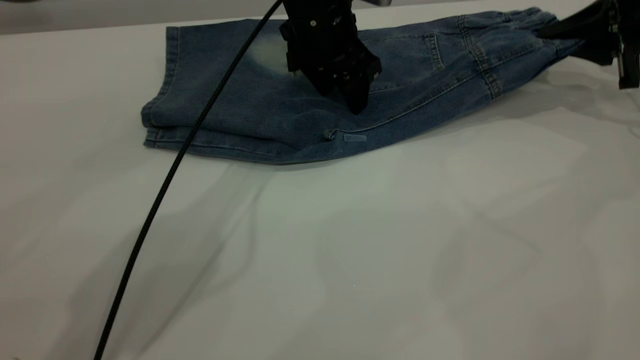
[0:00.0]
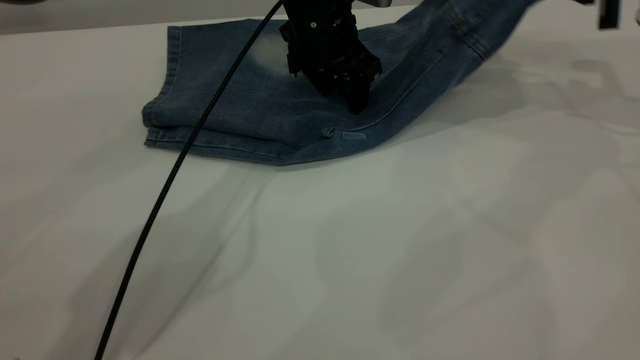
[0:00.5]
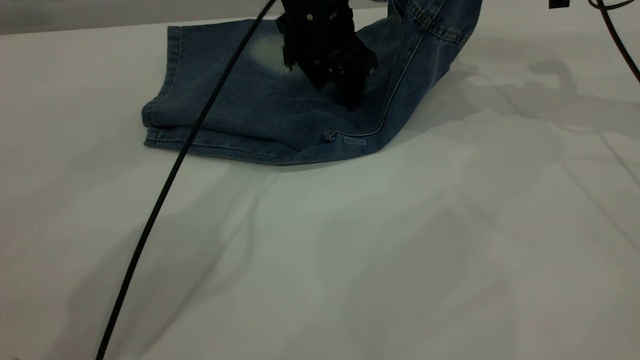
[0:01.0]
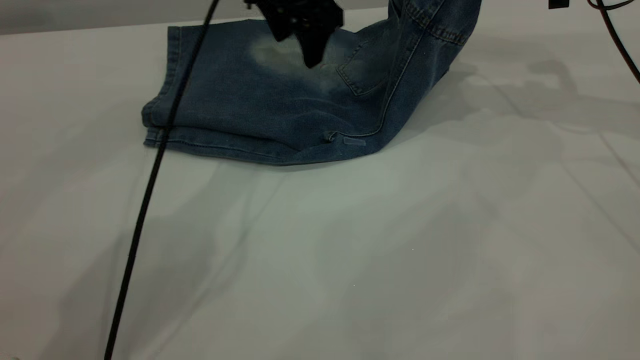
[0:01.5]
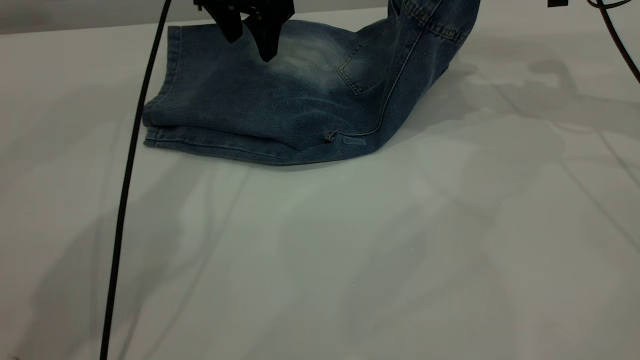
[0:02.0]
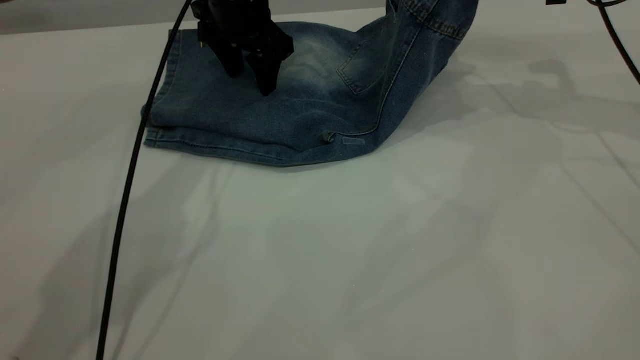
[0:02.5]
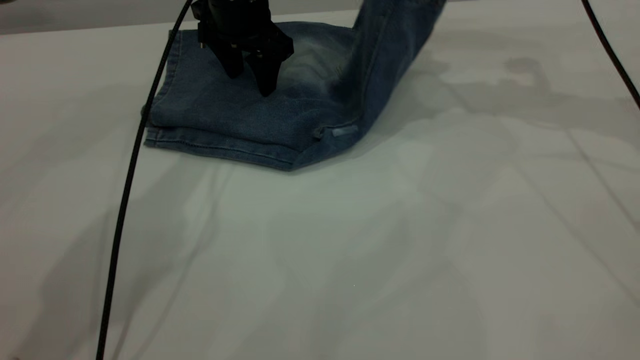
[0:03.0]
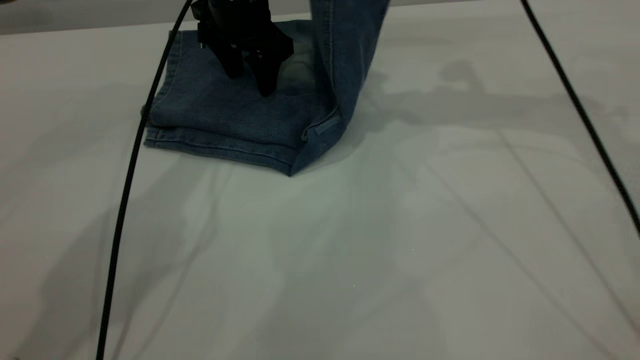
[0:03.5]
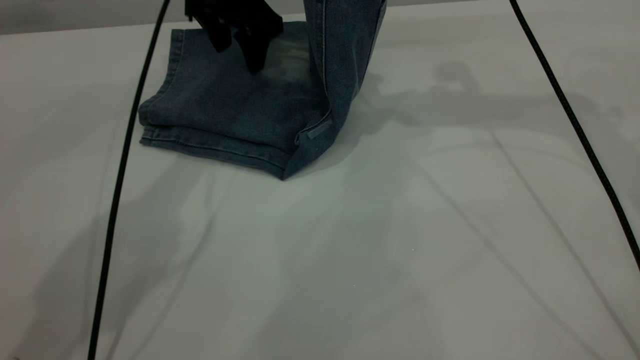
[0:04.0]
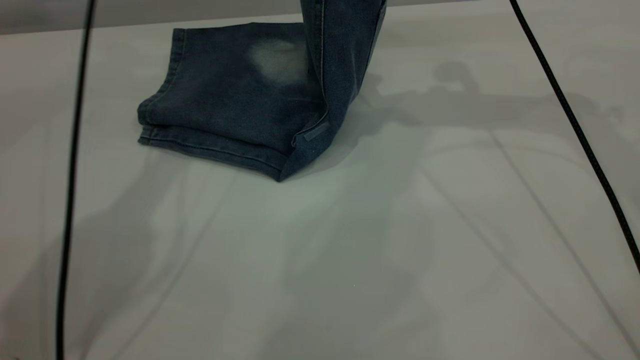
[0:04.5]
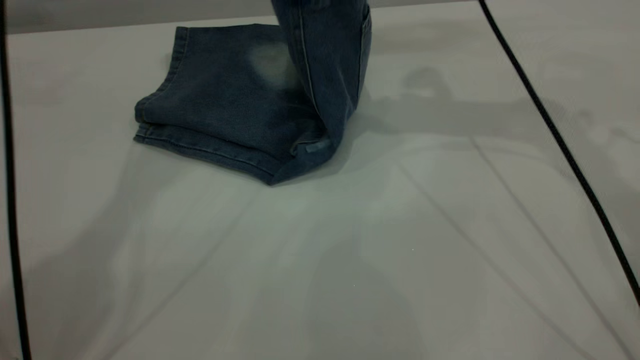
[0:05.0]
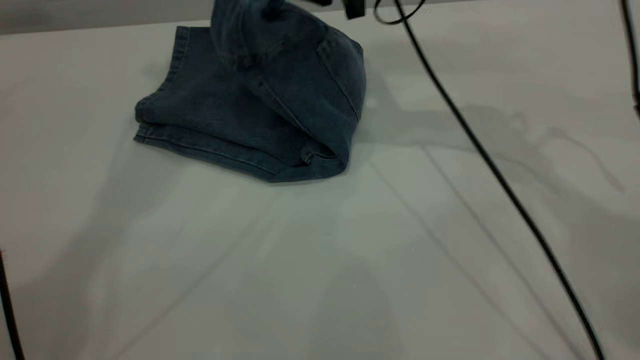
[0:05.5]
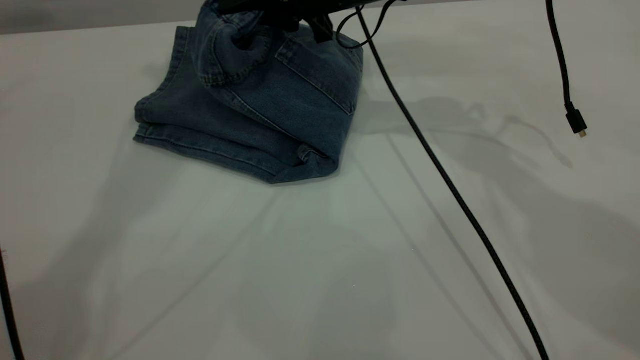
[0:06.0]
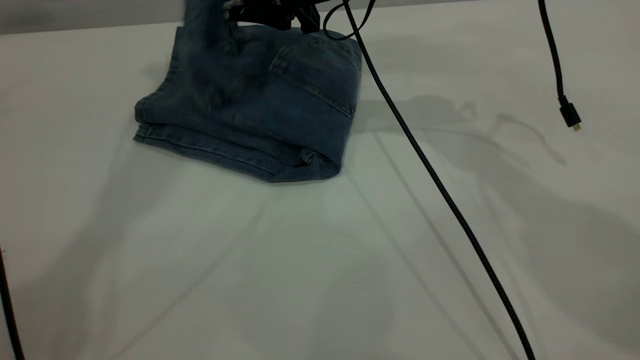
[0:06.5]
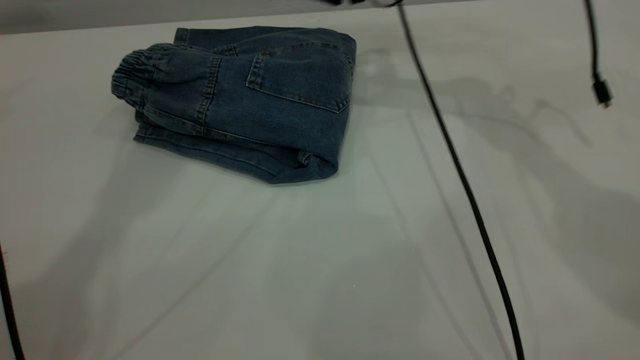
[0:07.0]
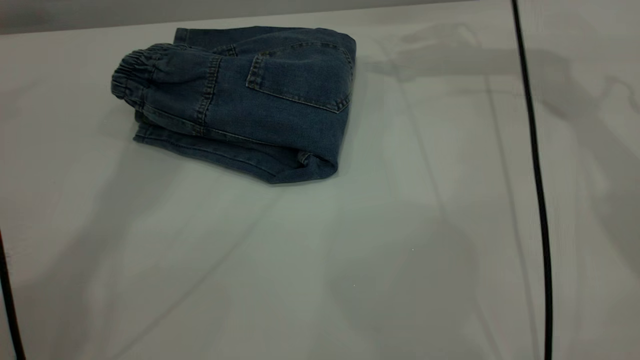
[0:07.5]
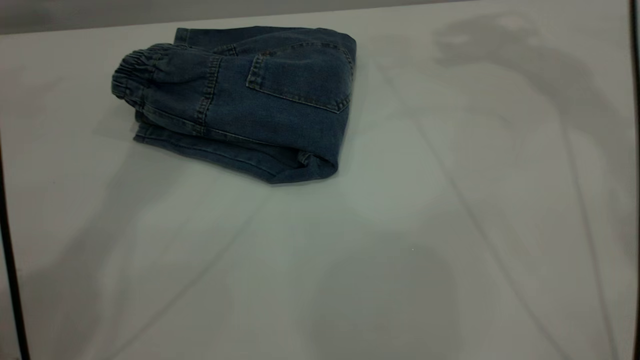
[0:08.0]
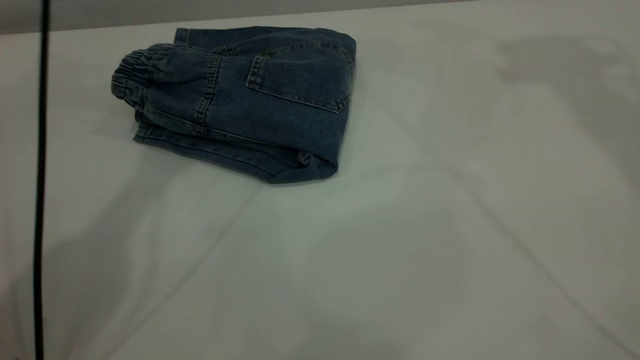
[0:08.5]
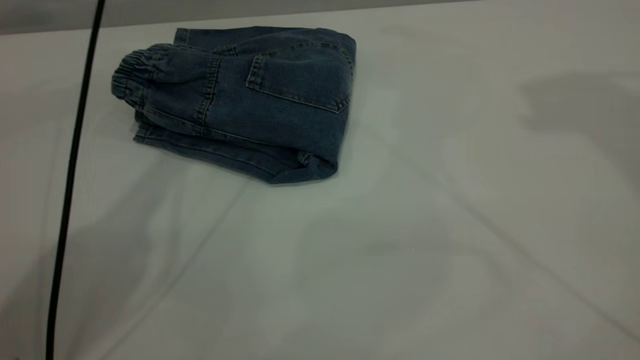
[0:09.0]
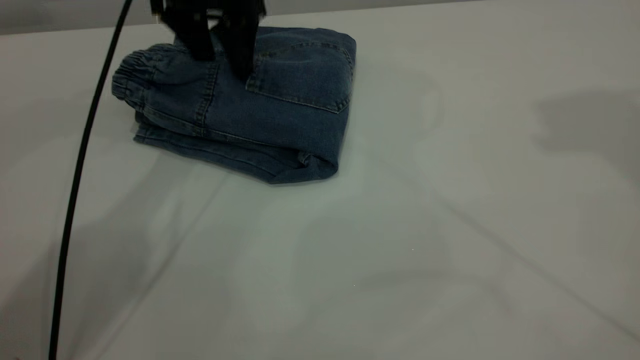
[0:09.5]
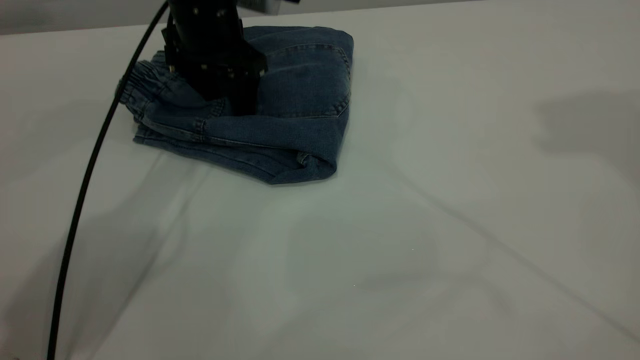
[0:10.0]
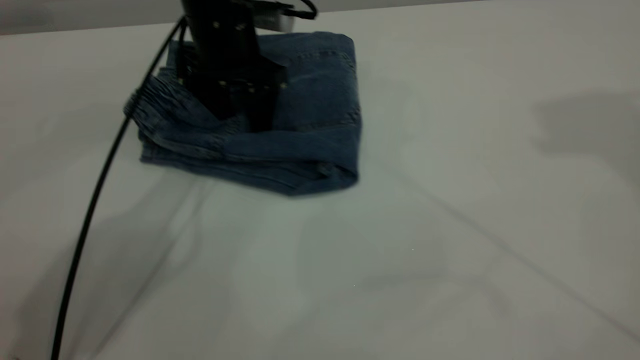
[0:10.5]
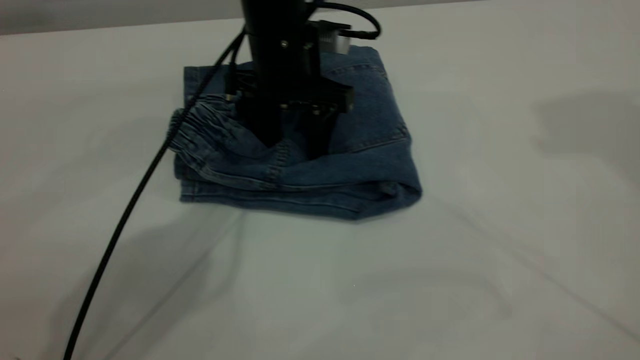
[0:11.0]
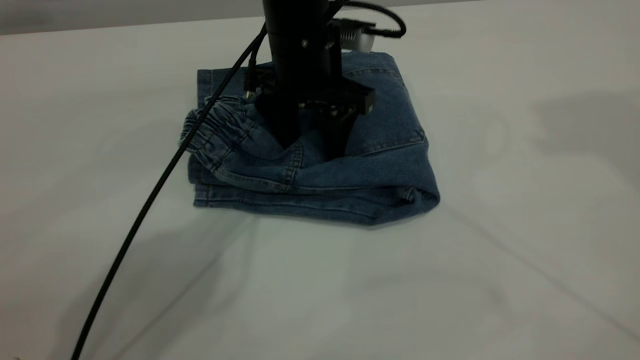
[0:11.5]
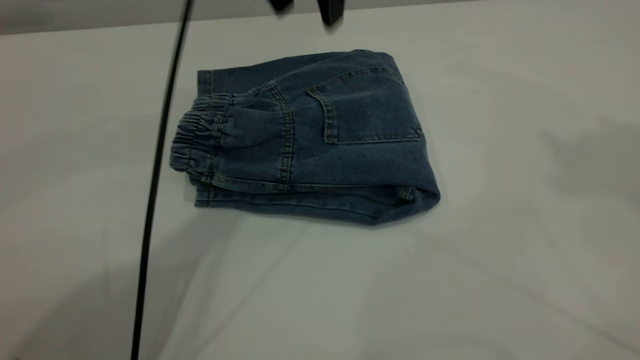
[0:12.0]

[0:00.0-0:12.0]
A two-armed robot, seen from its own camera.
Step, 0:00.0 to 0:06.5: Fold your pants from right to left.
0:00.0 to 0:02.0: Both grippers travel together to the left and upward, roughly 10 cm.
0:02.0 to 0:04.0: The right gripper goes about 15 cm to the left and upward.
0:04.0 to 0:06.0: The left gripper shifts some 30 cm upward. Meanwhile the right gripper moves to the left and downward, about 15 cm.
0:06.0 to 0:08.0: The right gripper goes about 30 cm upward and to the right, and opens up.
0:08.0 to 0:10.0: The right gripper is displaced backward and upward by roughly 20 cm; the left gripper moves downward, about 30 cm.
0:10.0 to 0:12.0: The left gripper goes some 20 cm upward and to the right. Meanwhile the right gripper goes about 5 cm backward.

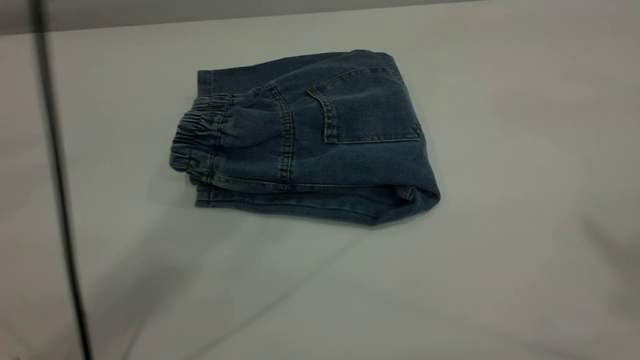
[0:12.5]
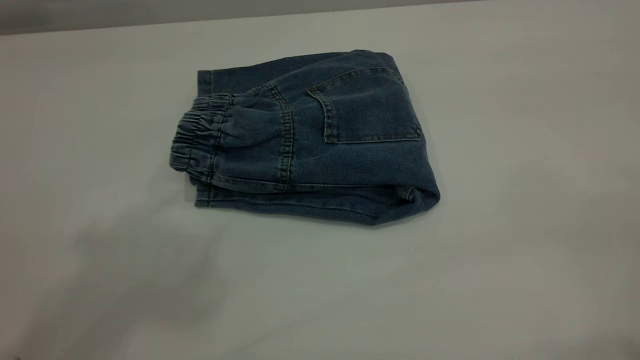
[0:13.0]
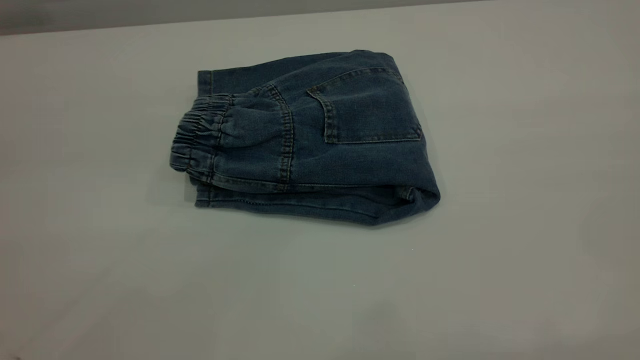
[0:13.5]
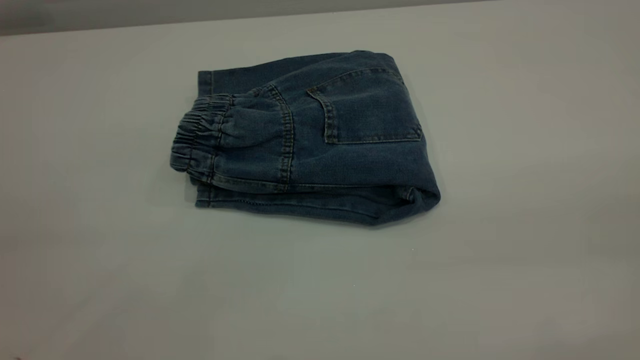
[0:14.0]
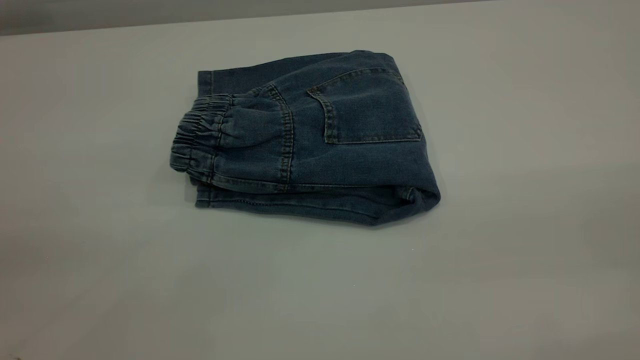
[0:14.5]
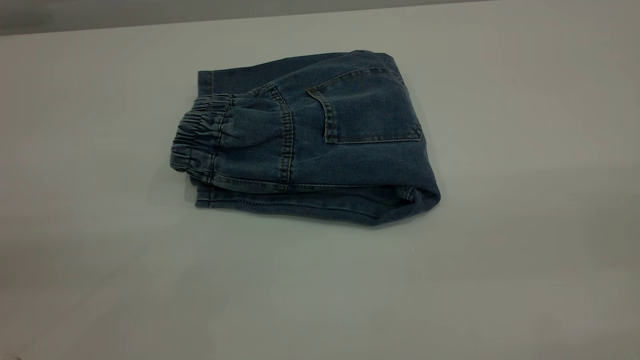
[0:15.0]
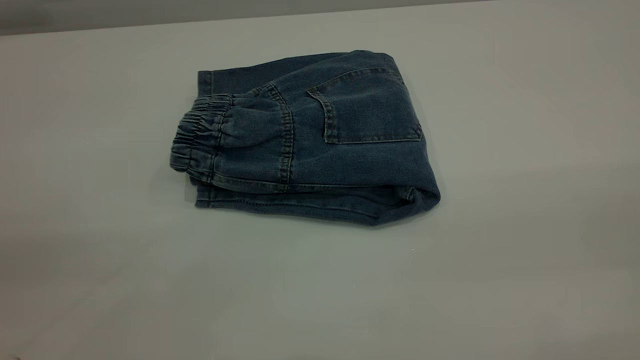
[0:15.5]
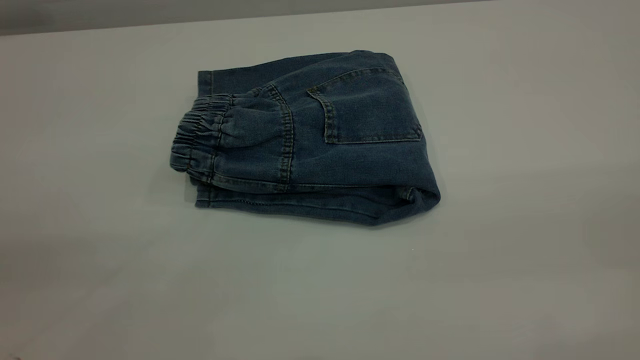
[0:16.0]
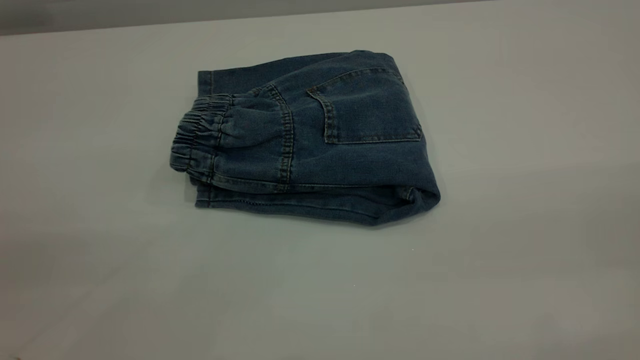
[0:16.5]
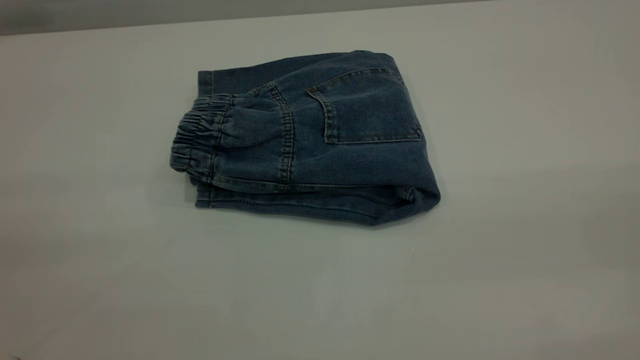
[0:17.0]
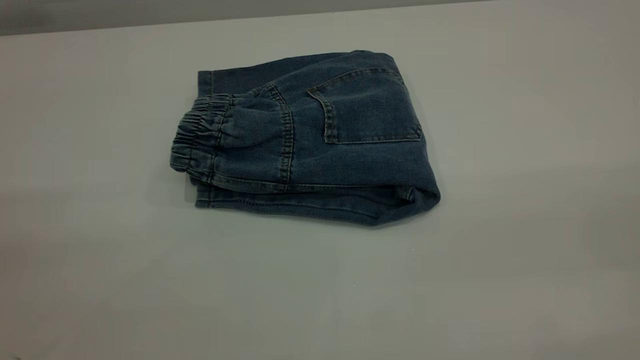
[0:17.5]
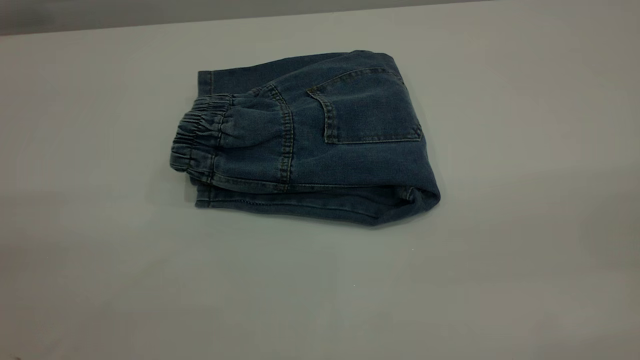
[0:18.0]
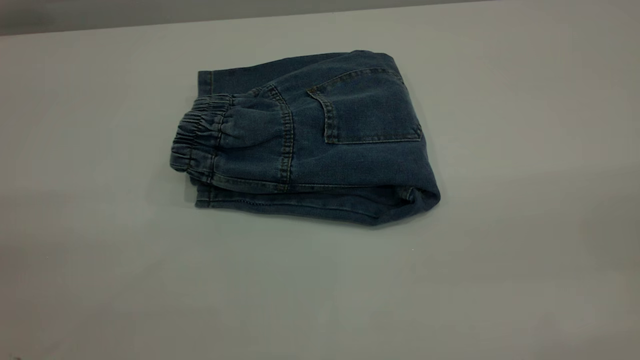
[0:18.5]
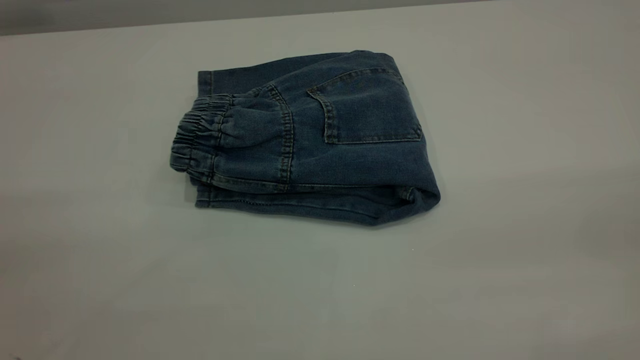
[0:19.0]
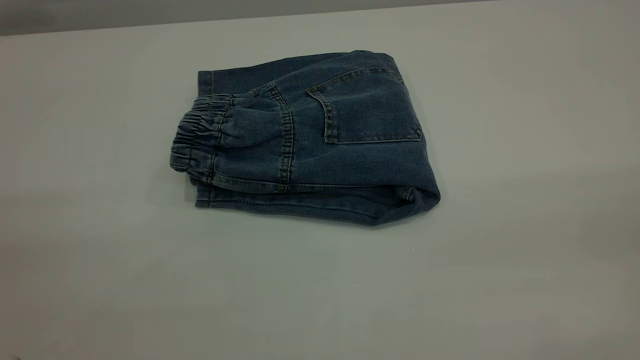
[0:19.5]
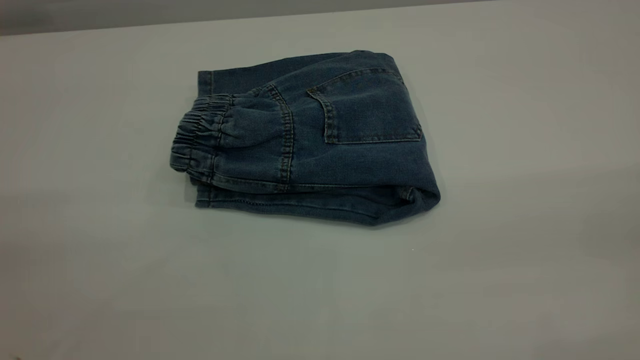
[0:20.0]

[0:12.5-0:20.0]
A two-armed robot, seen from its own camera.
0:12.5 to 0:14.5: The left gripper moves backward, to the left and downward, approximately 35 cm.
